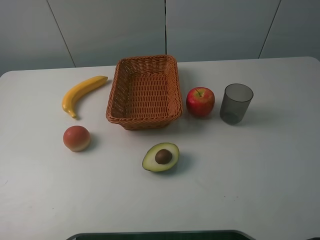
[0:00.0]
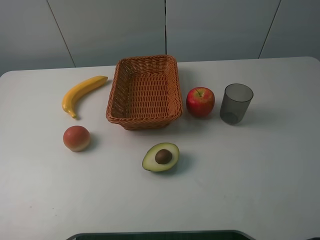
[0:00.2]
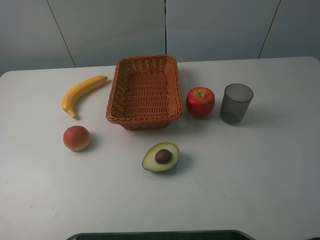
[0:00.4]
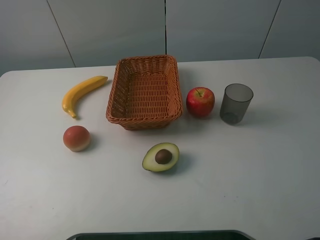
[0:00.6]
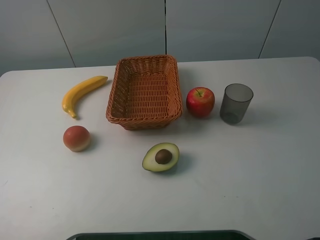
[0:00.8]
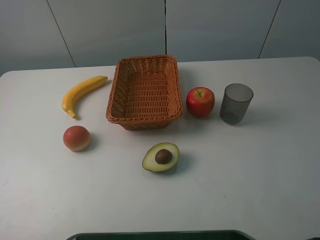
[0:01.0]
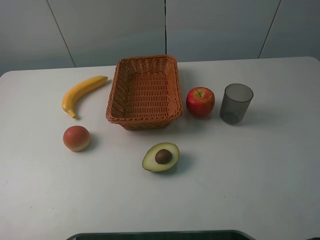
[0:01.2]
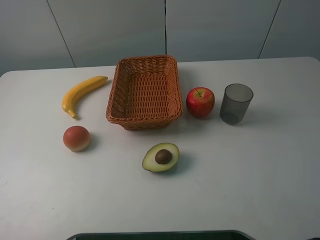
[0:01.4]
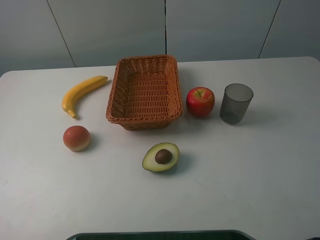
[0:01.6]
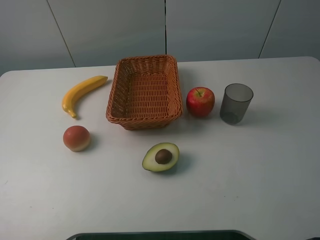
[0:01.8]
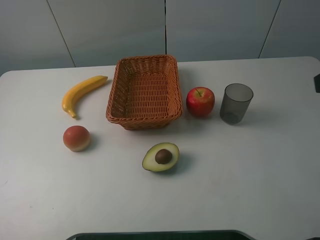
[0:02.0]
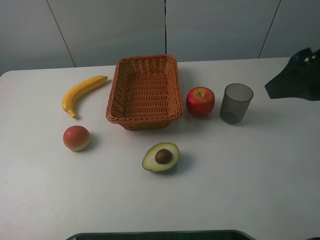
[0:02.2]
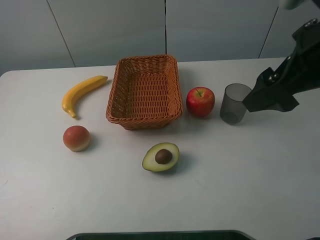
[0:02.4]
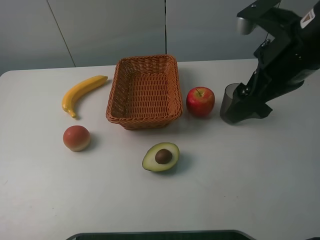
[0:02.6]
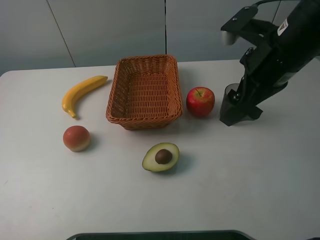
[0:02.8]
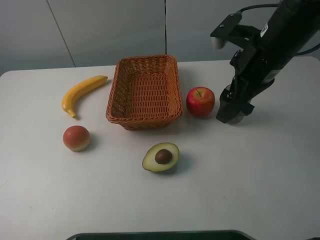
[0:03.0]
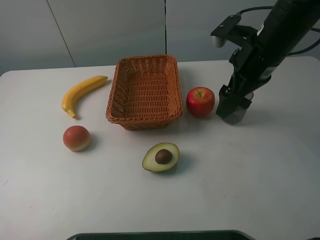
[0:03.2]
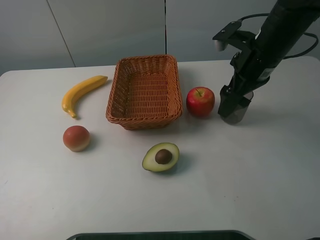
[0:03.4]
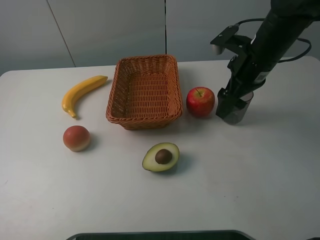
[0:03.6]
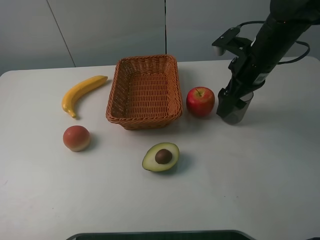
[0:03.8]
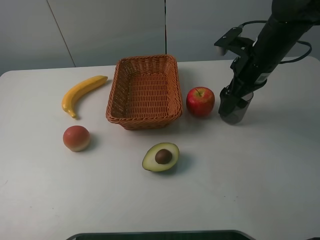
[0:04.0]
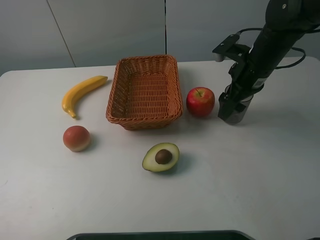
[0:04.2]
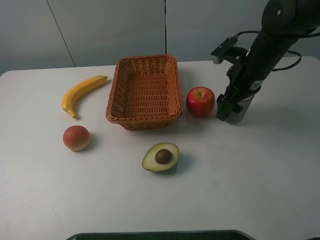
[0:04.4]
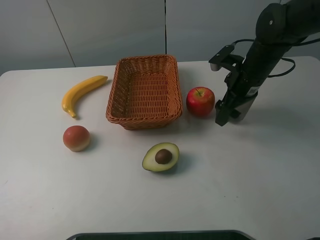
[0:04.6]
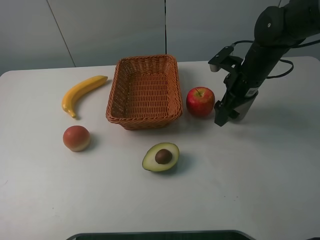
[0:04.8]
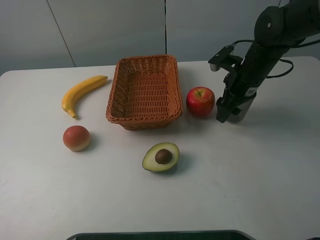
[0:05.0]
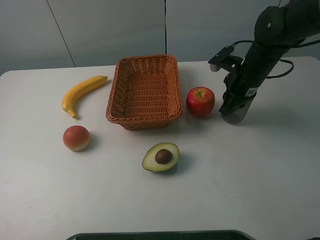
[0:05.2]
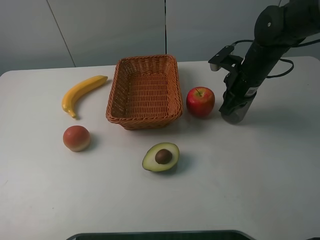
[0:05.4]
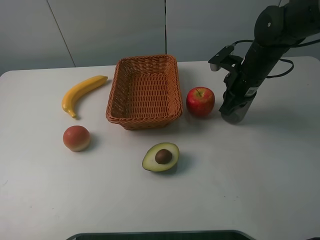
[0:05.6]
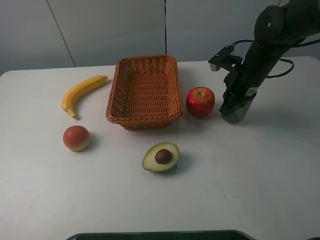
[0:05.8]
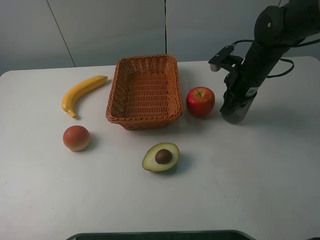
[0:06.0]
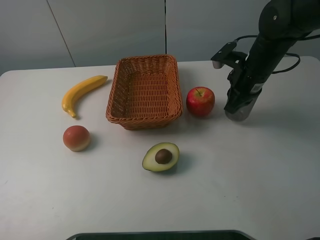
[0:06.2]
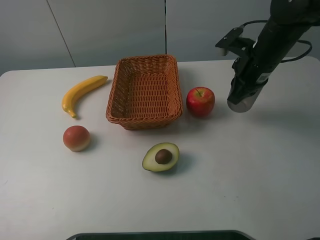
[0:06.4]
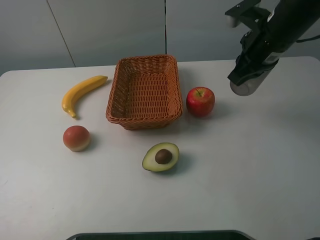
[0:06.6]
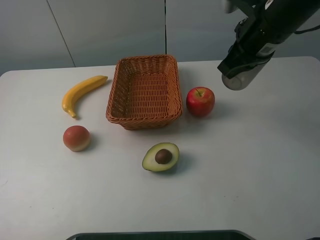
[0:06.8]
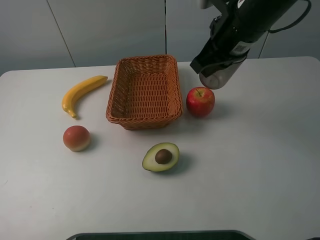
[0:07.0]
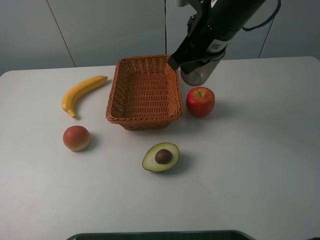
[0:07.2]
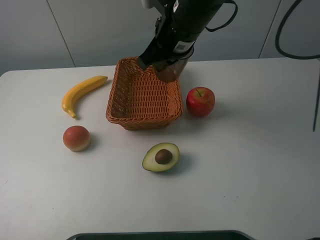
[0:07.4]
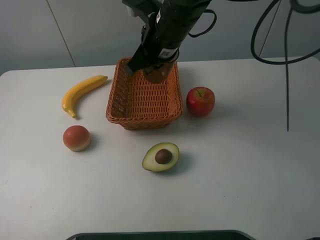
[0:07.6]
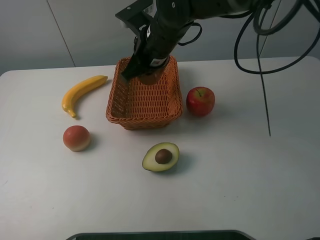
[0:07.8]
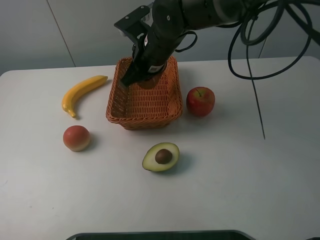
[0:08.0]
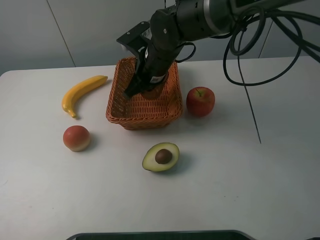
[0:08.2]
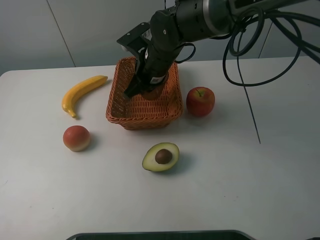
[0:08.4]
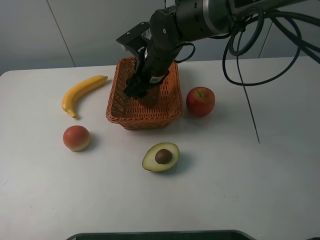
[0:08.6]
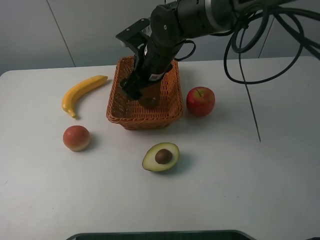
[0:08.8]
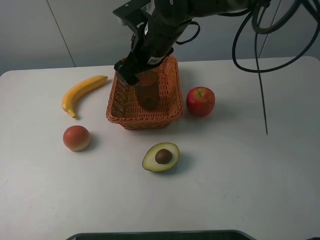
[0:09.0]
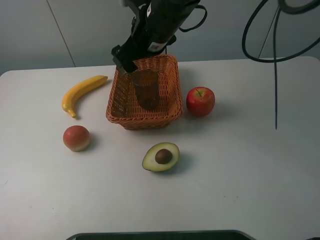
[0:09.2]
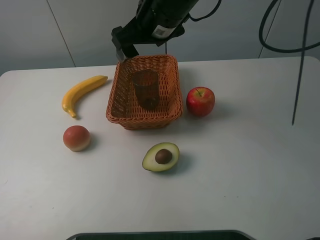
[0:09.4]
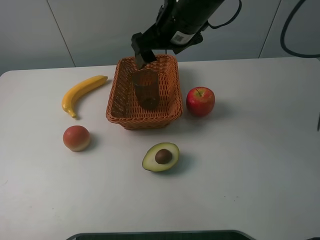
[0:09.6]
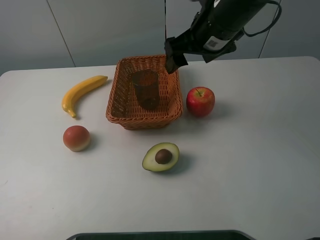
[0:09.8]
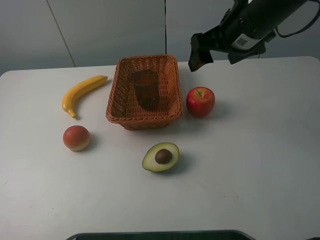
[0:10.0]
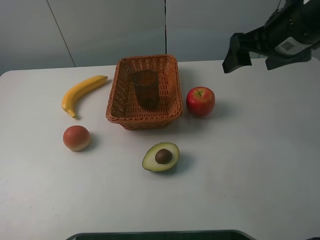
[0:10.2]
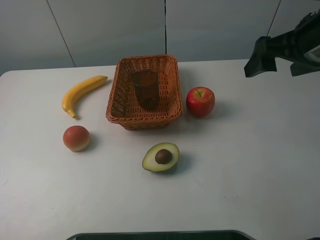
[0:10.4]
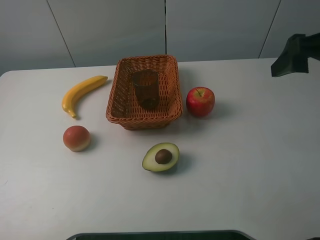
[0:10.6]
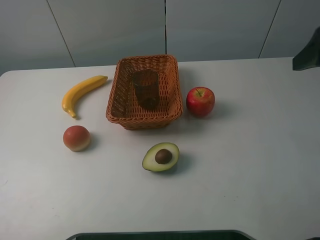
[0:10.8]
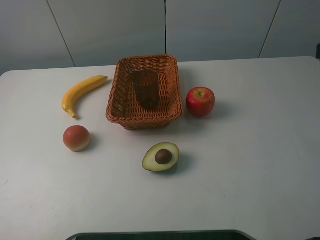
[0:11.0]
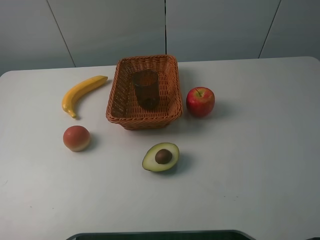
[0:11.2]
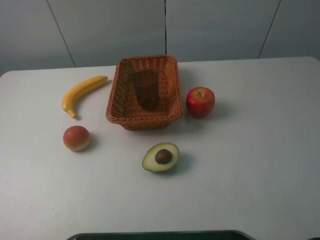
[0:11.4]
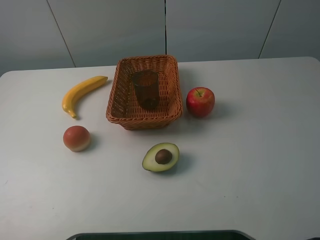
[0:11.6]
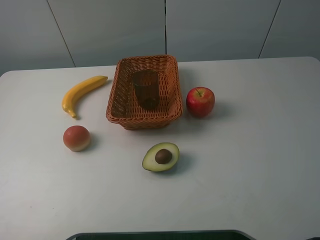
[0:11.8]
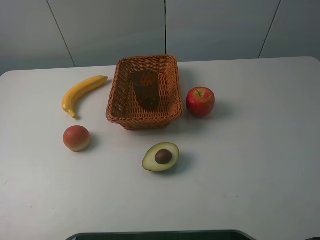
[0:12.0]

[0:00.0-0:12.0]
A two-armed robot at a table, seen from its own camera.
0:01.6 to 0:03.0: The right gripper goes roughly 25 cm forward and to the left.
0:03.0 to 0:04.4: The right gripper is displaced downward and forward by approximately 10 cm.
0:04.4 to 0:06.0: The right gripper closes.
0:06.0 to 0:07.6: The right gripper shifts some 20 cm to the left and upward.
0:07.6 to 0:09.0: The right gripper opens.
0:09.0 to 0:10.4: The right gripper heads to the right and backward, covering some 25 cm.
0:10.4 to 0:12.0: The right gripper is displaced backward by roughly 20 cm.

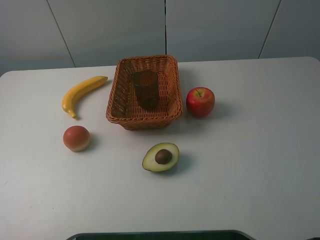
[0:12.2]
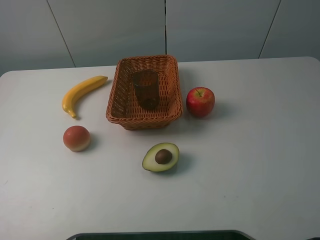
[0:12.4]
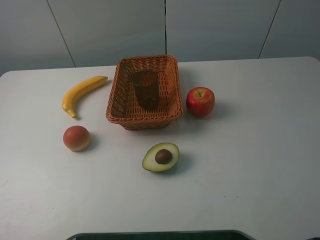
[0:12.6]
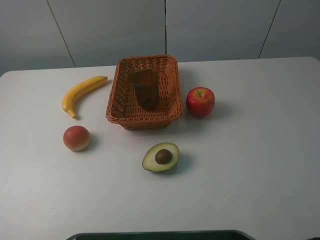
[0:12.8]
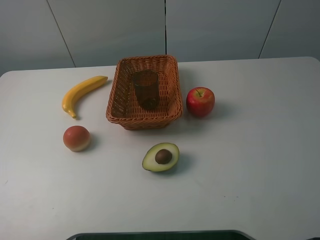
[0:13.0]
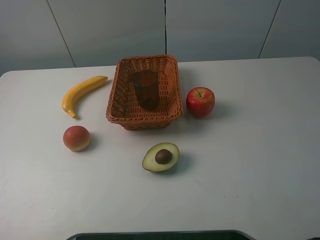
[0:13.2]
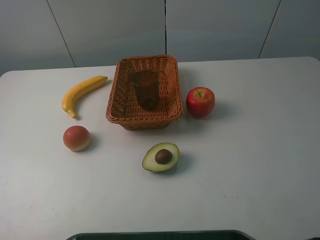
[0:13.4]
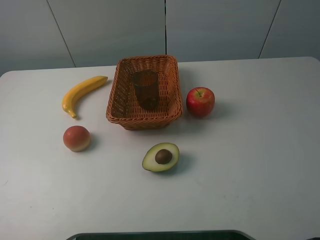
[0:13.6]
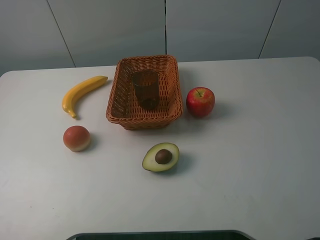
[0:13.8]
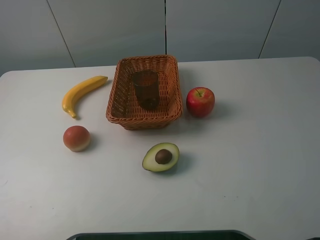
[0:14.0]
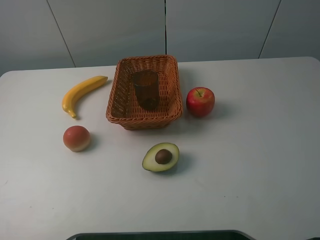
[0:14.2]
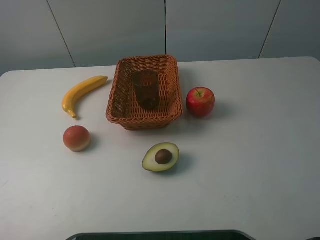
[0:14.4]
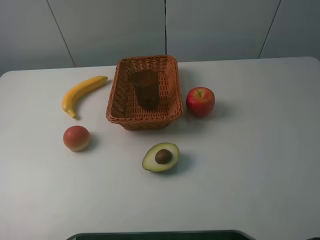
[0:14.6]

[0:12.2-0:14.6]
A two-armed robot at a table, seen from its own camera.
0:12.2 to 0:14.6: Neither gripper changes place.
